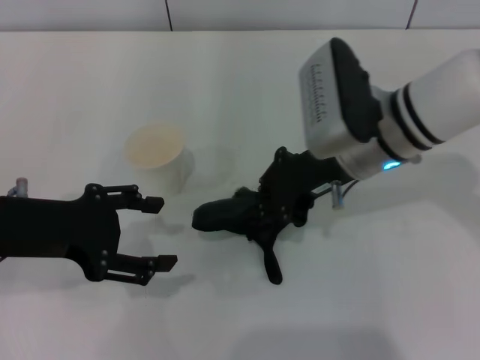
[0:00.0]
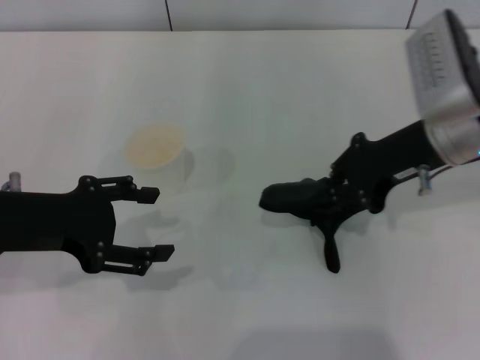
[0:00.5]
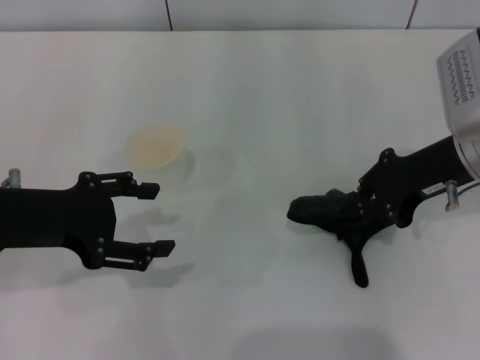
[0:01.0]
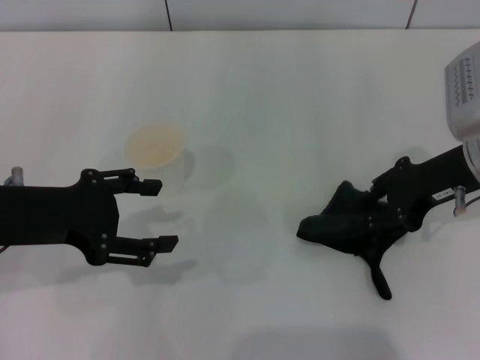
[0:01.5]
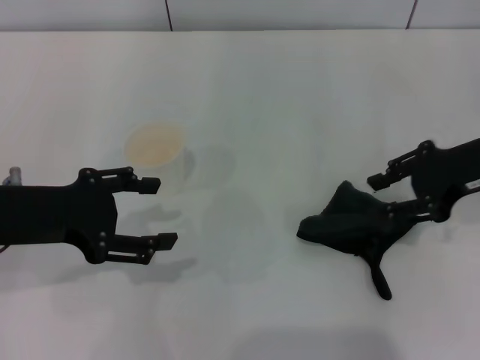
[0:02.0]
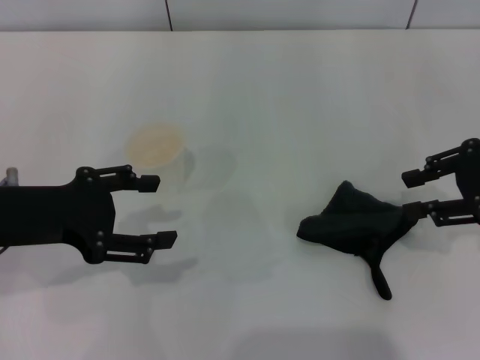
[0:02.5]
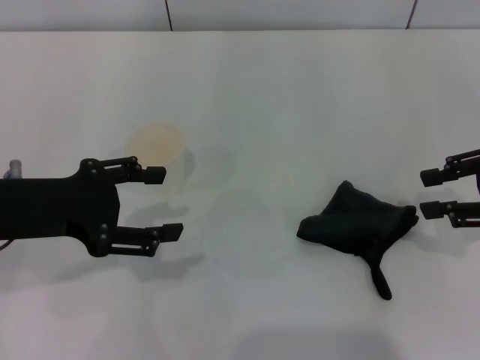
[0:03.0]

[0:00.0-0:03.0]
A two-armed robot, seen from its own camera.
Step, 0:01.0 to 0:02.0: Place the rag on the table with the right gripper.
0:00.0 to 0:01.5: The right gripper shifts roughly 10 cm to the right.
0:01.5 to 0:03.0: The right gripper shifts approximately 10 cm to the right.
